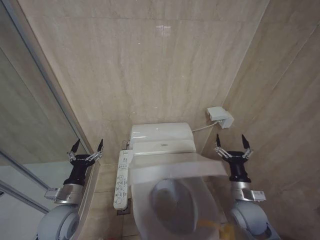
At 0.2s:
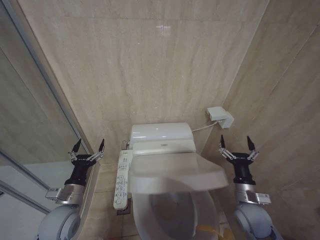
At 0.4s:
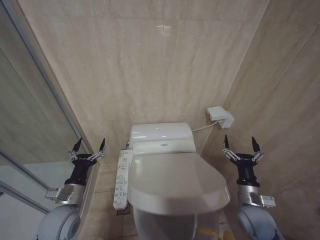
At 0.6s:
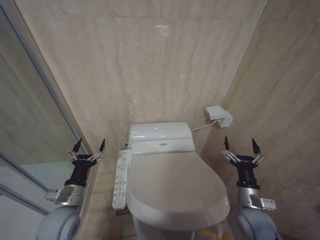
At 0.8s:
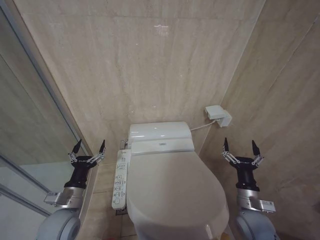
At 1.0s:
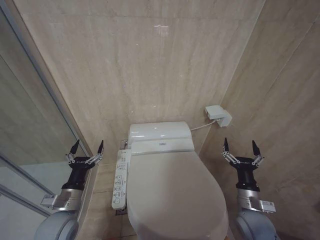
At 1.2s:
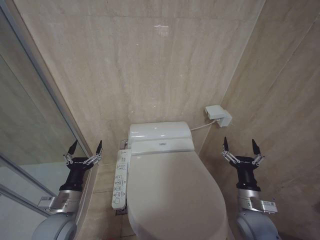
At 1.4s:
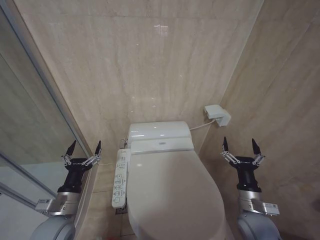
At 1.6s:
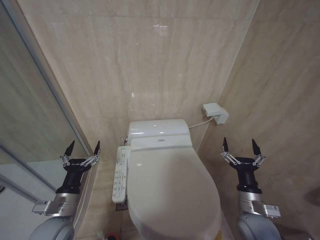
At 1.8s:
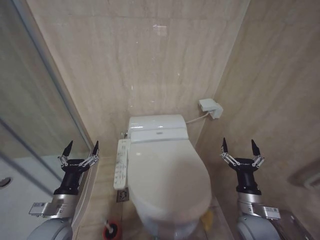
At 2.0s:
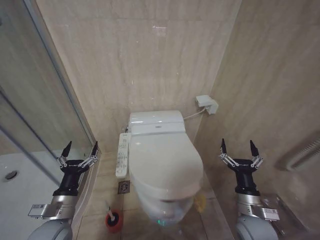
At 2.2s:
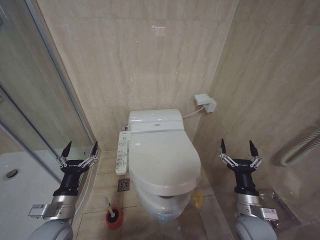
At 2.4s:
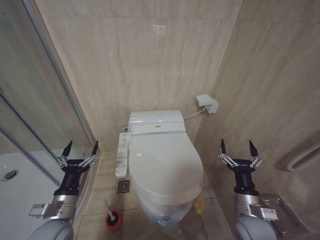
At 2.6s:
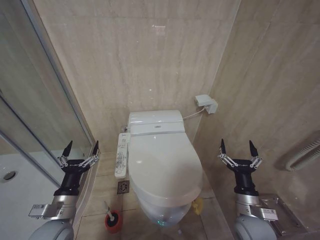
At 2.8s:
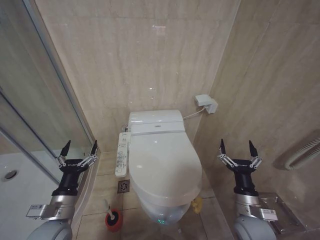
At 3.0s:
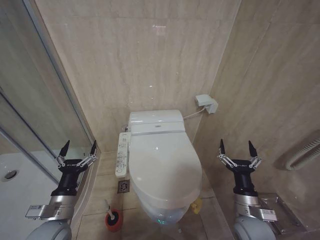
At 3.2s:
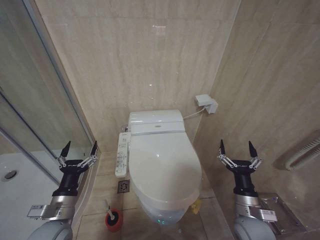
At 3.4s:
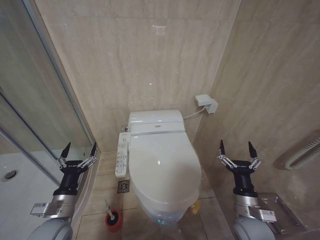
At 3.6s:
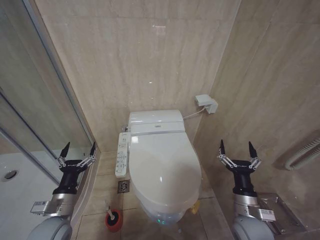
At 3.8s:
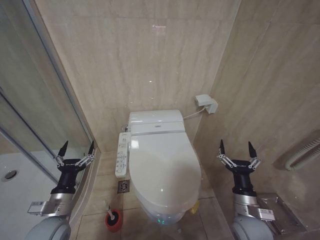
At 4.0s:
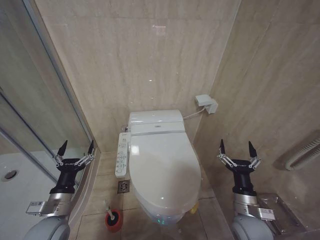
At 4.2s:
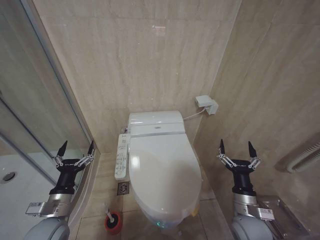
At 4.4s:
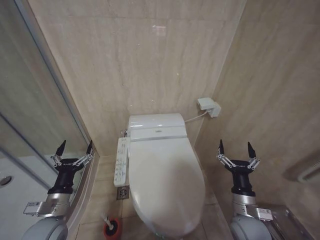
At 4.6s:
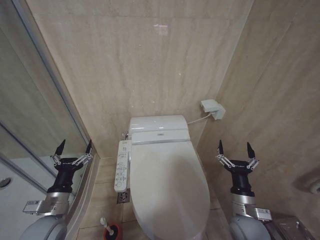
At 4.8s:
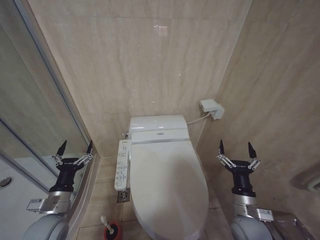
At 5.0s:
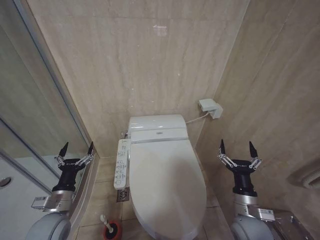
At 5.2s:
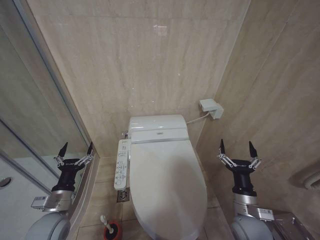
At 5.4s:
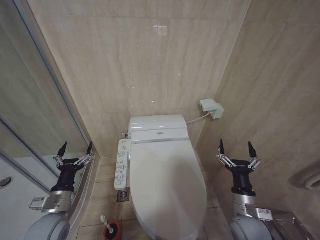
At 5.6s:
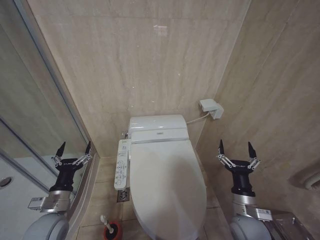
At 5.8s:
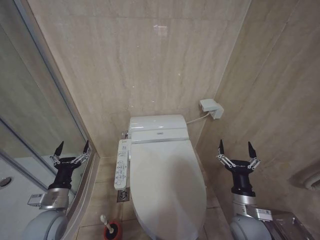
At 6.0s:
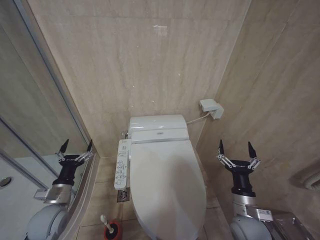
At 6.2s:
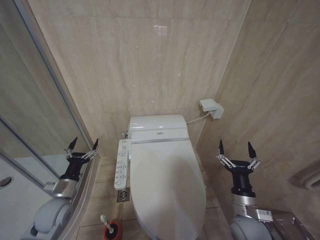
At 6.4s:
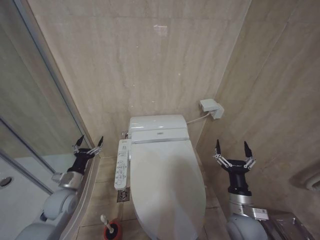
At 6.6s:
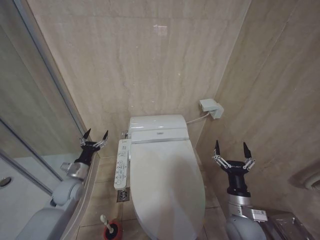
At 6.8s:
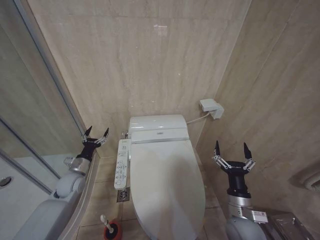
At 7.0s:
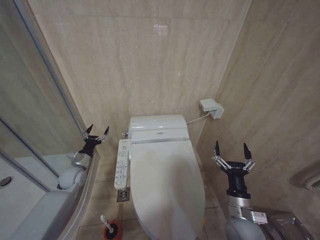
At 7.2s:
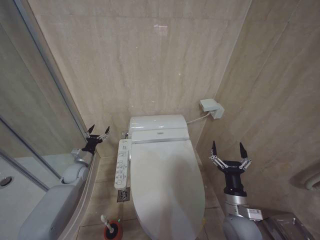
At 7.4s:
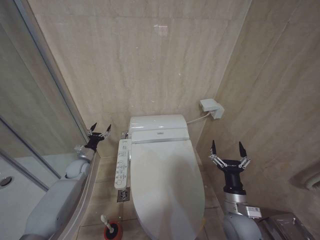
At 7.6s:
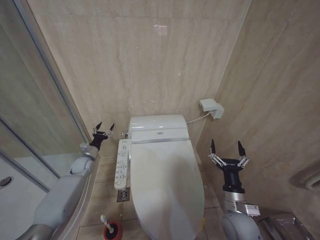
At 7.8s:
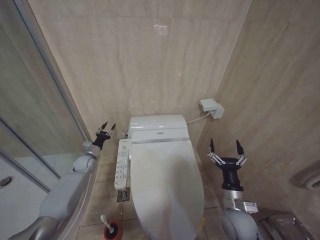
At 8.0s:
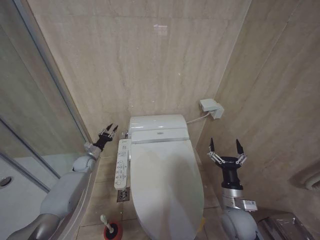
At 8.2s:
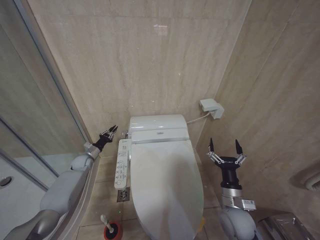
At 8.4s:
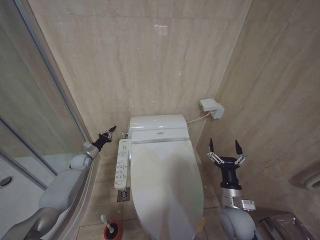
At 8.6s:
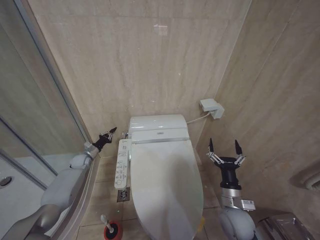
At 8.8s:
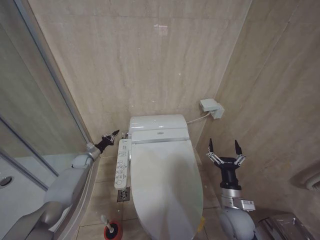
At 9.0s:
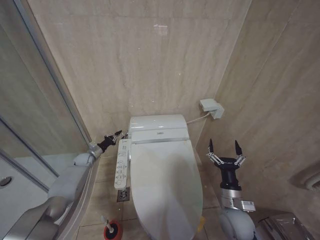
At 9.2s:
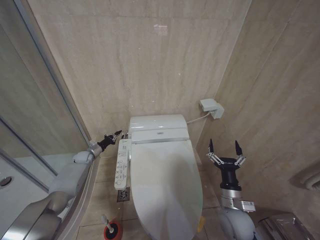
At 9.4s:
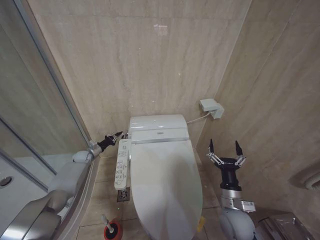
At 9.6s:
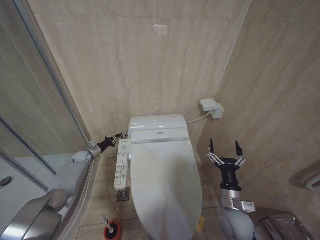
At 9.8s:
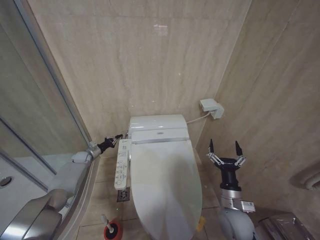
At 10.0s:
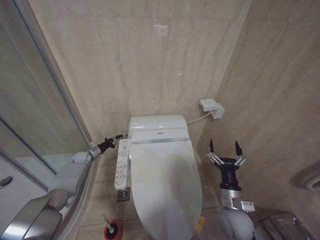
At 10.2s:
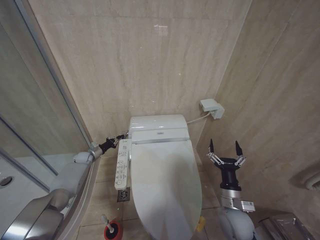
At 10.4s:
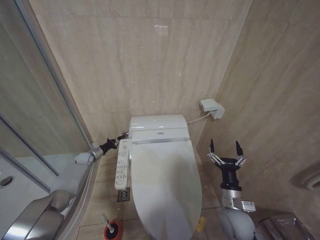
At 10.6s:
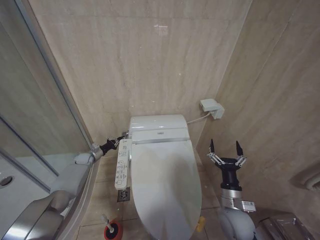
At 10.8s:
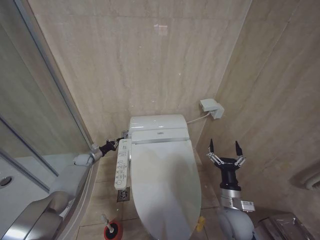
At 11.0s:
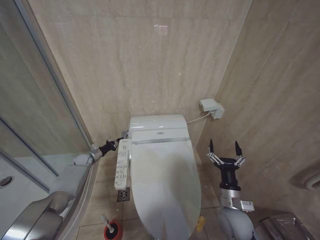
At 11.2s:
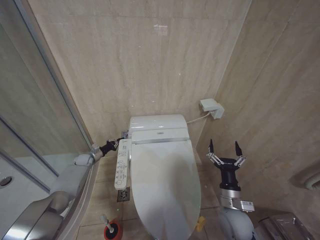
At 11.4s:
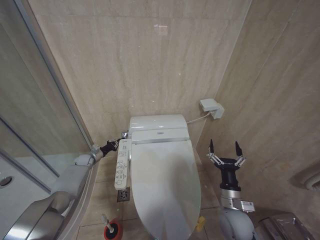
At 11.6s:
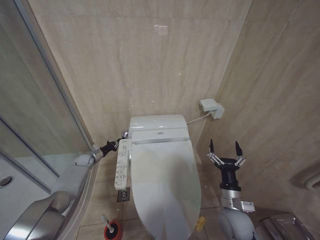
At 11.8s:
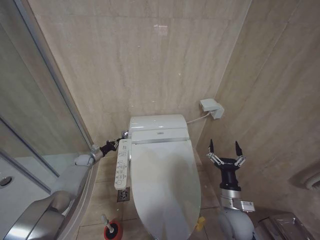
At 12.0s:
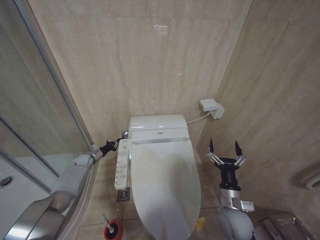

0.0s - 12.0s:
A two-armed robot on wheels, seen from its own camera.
Task of the whole recording: Open the toilet lid, clean the toilet bowl with a toilet brush, close the toilet lid, and flush.
0.0s - 1.6s: The right gripper changes place by about 5 cm.
1.6s - 4.4s: The grippers make only small movements.
4.4s - 6.0s: The left gripper ends up approximately 5 cm from where it was.
6.0s - 7.6s: The left gripper is displaced forward by roughly 25 cm.
7.6s - 9.0s: The left gripper heads forward, covering about 5 cm, and closes up.
9.0s - 10.4s: There are only small adjustments of the grippers.
10.4s - 12.0s: The two grippers keep their place.

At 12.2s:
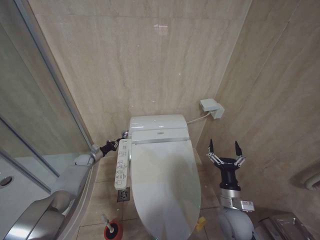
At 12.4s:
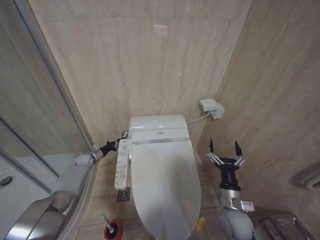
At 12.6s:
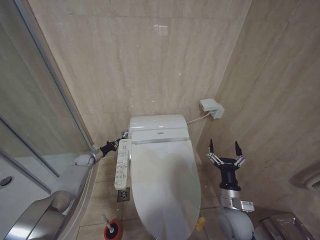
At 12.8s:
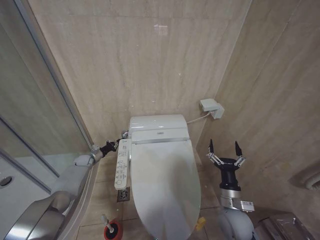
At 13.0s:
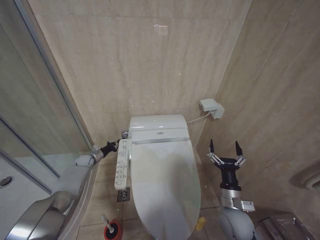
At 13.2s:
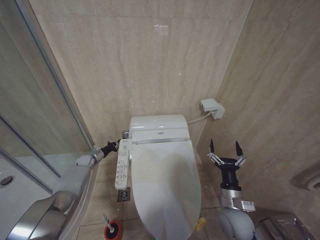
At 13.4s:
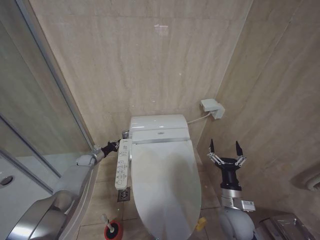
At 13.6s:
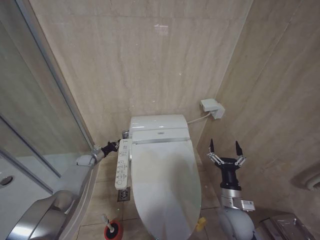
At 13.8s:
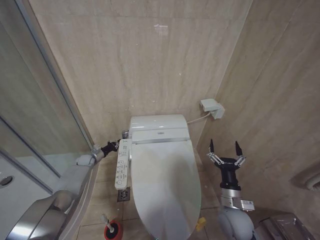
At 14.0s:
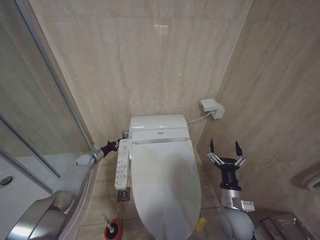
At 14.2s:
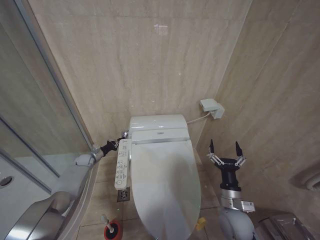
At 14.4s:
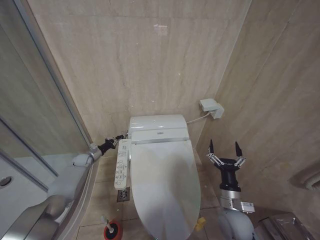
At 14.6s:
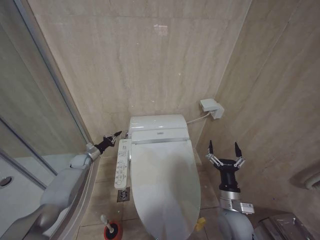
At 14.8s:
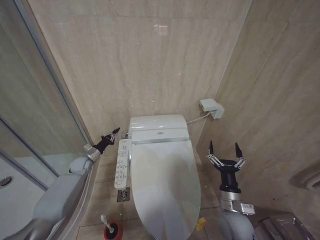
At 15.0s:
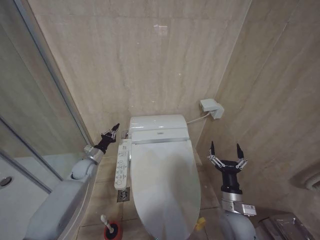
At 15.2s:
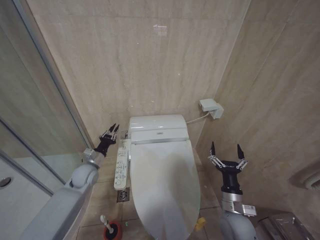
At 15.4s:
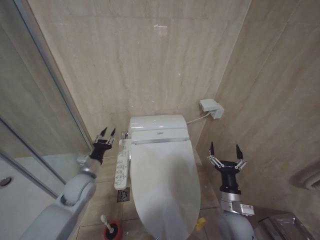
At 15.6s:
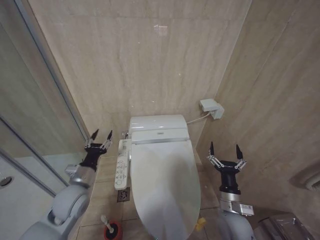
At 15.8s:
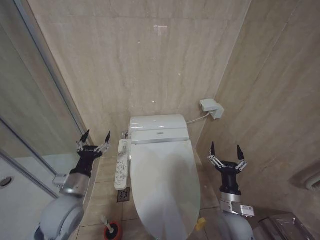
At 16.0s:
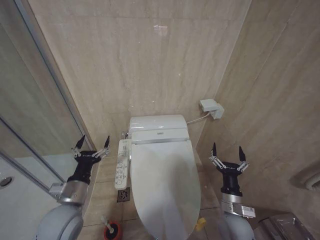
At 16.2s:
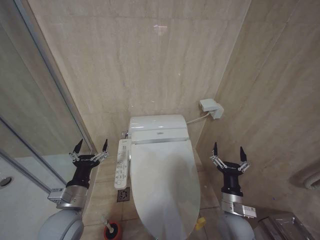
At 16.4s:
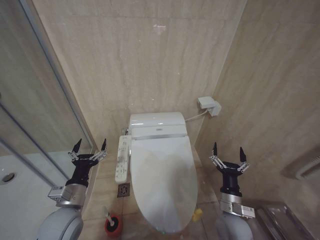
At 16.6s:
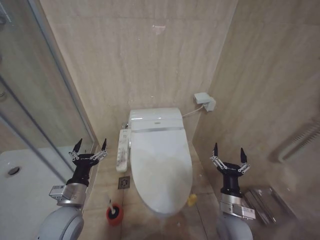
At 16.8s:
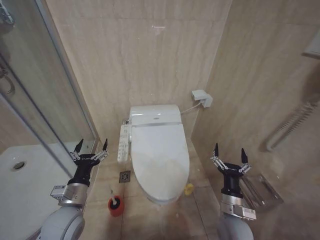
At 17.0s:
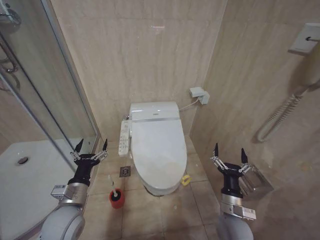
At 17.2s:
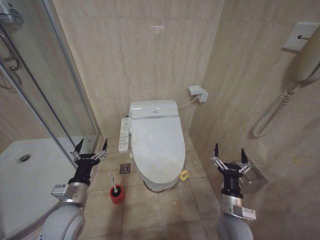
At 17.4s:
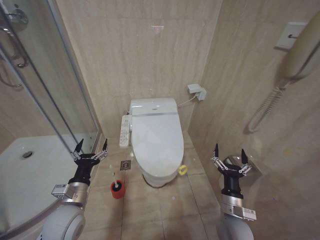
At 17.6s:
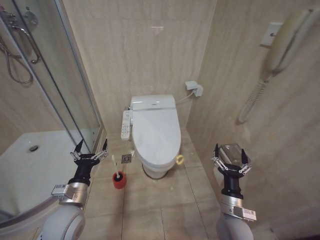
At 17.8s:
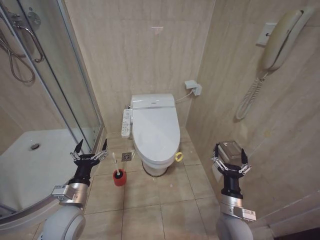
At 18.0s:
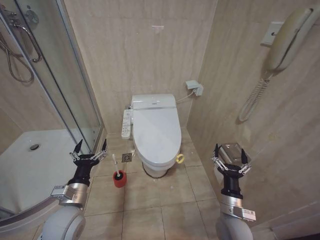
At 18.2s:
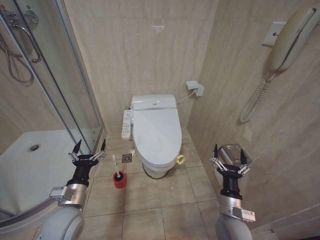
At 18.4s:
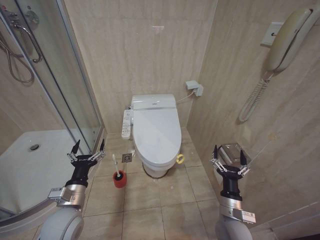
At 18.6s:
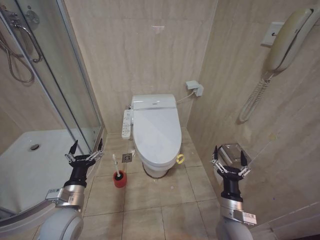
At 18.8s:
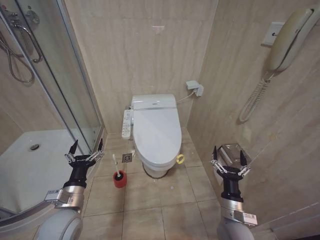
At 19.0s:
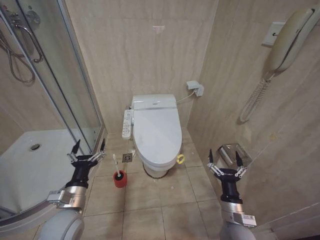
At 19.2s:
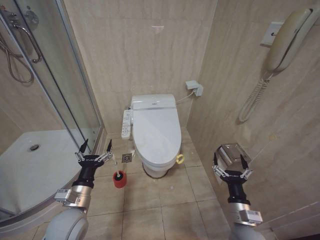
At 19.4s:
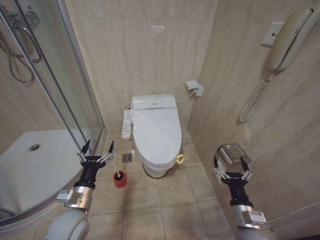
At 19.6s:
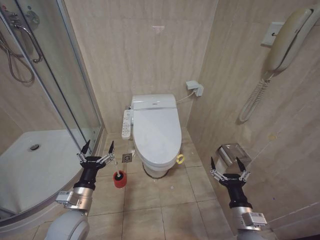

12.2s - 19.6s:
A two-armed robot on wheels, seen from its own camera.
Task of the whole recording: Open the toilet lid, clean the toilet bowl with a toilet brush, close the toilet lid, and flush.
12.2s - 13.6s: The two grippers keep their place.
13.6s - 15.2s: The left gripper goes roughly 20 cm backward, upward and to the right.
15.2s - 16.6s: The left gripper goes approximately 20 cm backward, and opens its fingers.
18.2s - 19.6s: The right gripper is displaced backward by roughly 5 cm.

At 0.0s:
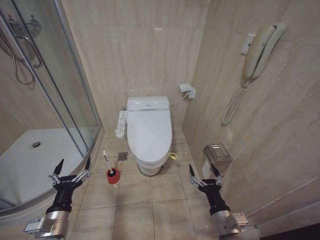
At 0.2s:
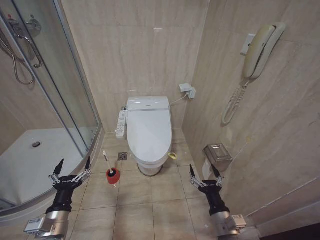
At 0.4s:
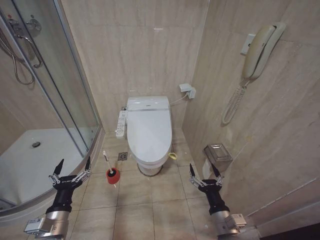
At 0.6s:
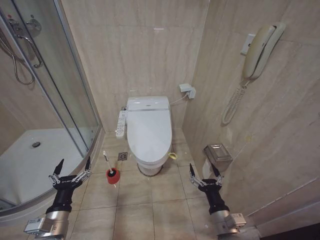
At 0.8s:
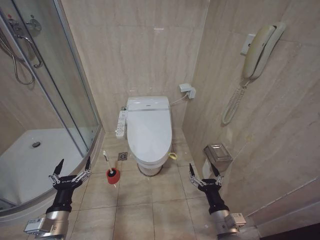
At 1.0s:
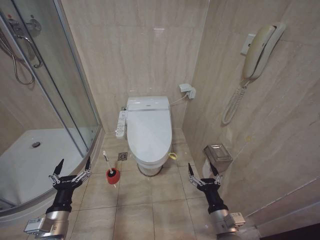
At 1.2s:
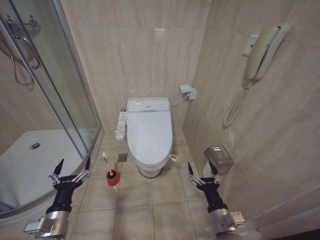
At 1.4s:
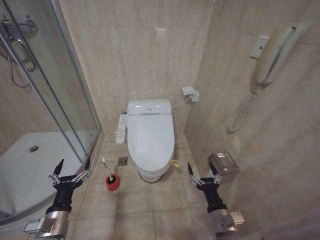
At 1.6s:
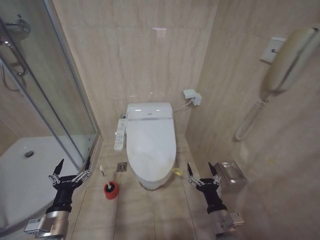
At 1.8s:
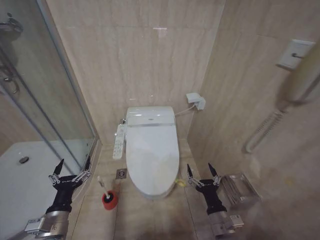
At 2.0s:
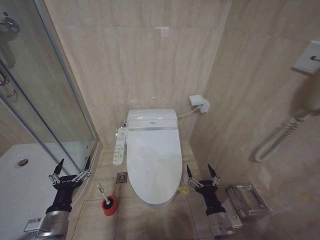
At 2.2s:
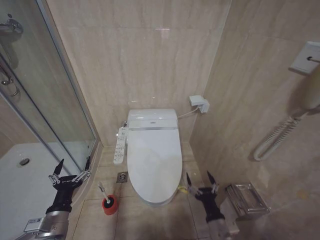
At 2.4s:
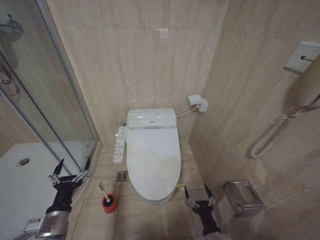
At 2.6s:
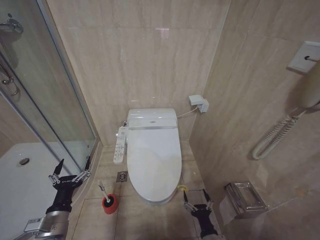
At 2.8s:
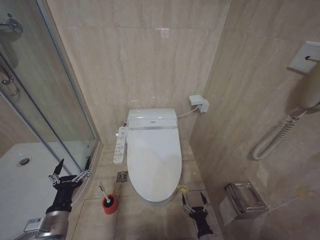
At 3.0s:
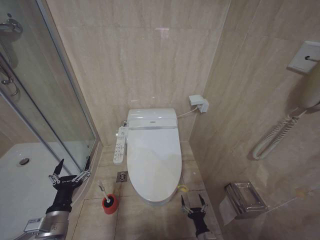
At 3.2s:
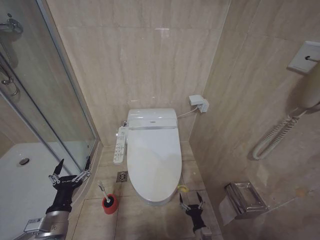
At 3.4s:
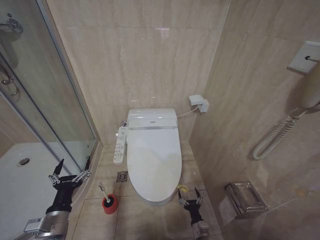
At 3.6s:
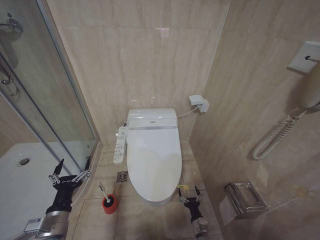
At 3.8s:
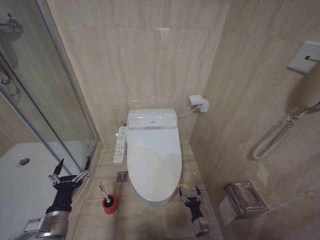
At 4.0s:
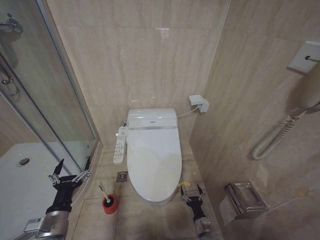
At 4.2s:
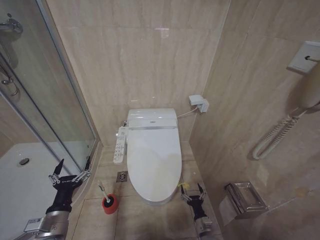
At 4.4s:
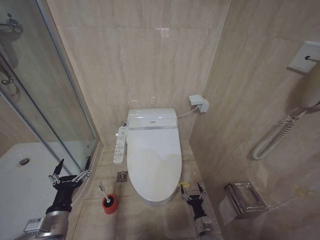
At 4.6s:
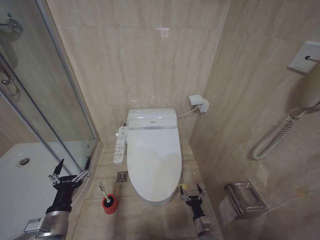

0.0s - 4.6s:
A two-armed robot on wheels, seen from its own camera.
Task of the whole recording: Open the toilet lid, clean the toilet bowl with a toilet brush, close the toilet lid, and flush.
1.6s - 3.0s: The right gripper shifts some 20 cm downward.
